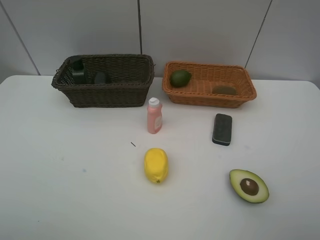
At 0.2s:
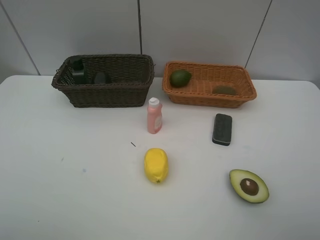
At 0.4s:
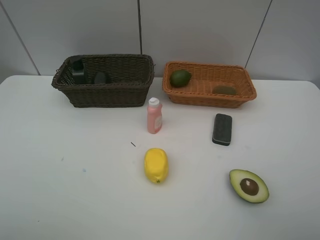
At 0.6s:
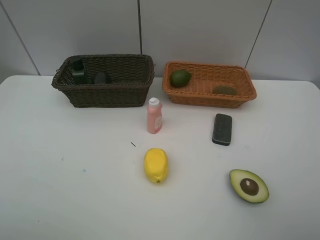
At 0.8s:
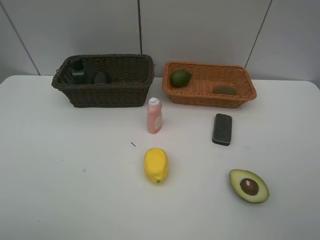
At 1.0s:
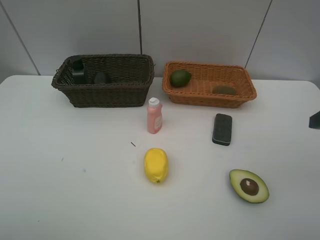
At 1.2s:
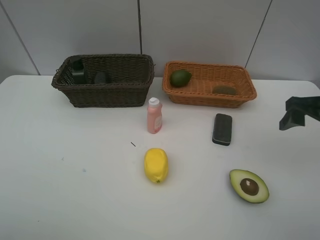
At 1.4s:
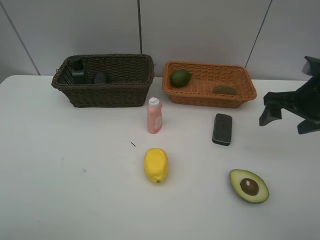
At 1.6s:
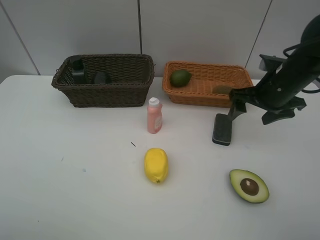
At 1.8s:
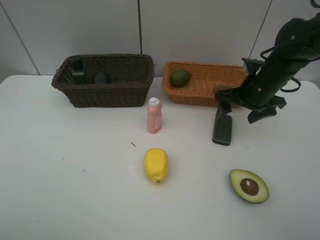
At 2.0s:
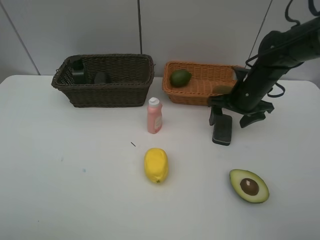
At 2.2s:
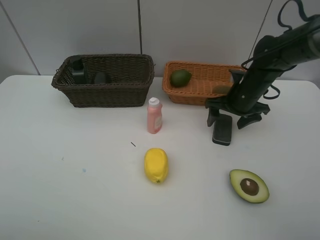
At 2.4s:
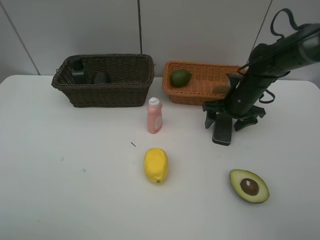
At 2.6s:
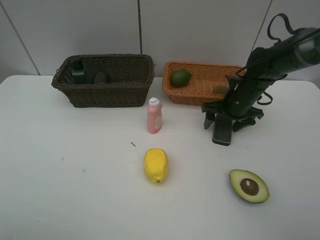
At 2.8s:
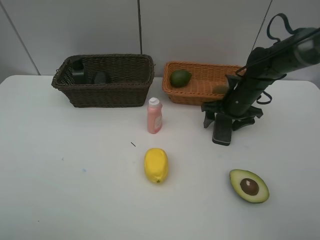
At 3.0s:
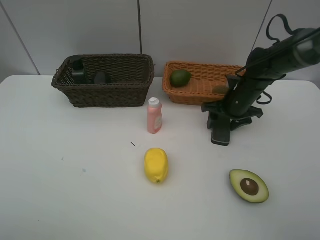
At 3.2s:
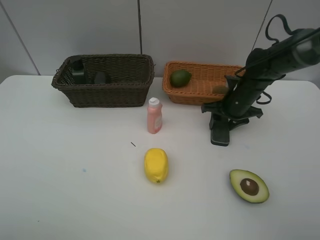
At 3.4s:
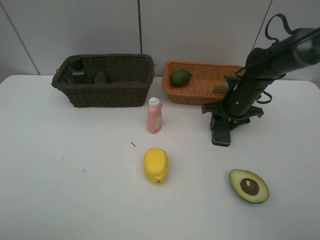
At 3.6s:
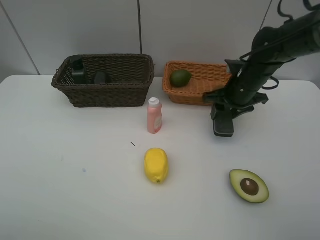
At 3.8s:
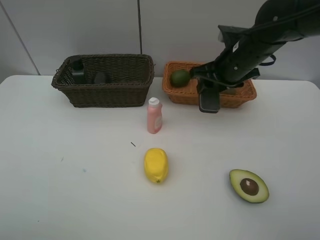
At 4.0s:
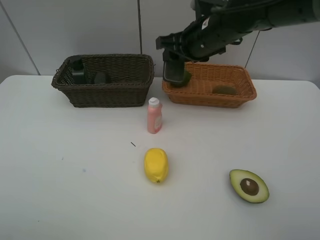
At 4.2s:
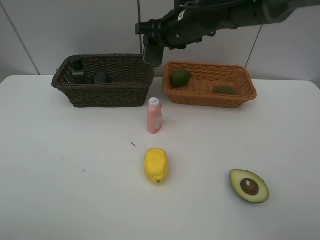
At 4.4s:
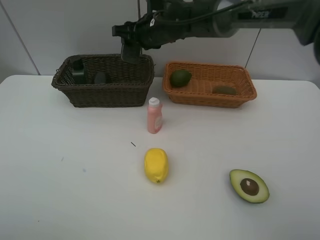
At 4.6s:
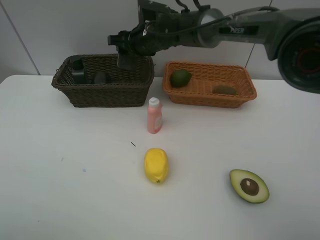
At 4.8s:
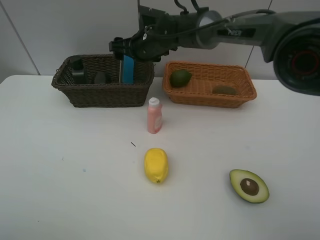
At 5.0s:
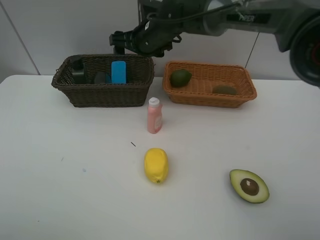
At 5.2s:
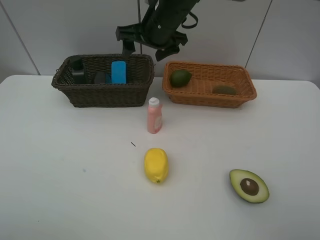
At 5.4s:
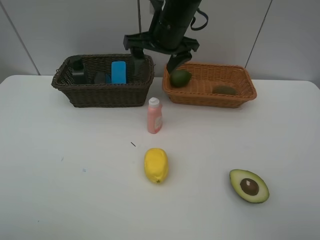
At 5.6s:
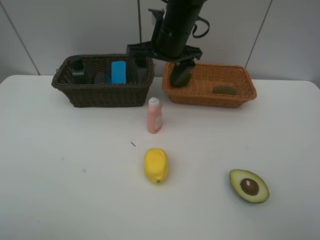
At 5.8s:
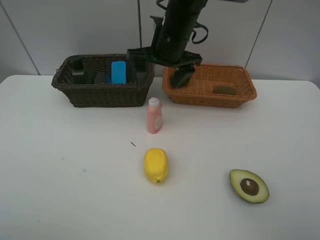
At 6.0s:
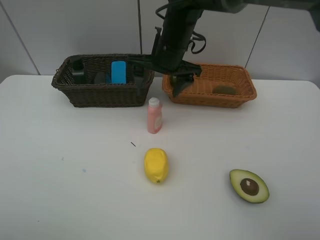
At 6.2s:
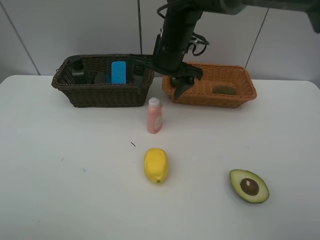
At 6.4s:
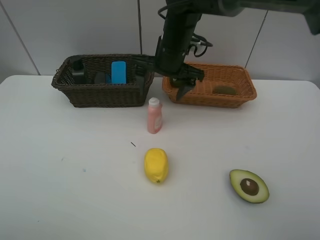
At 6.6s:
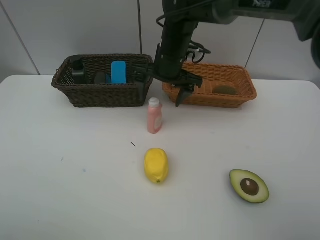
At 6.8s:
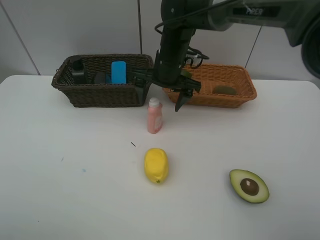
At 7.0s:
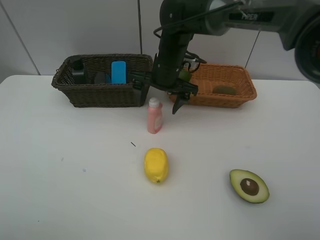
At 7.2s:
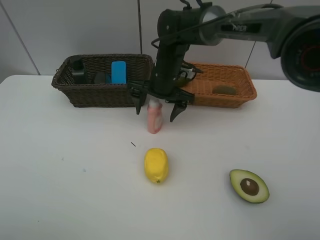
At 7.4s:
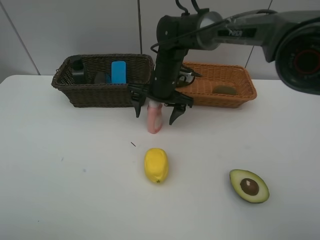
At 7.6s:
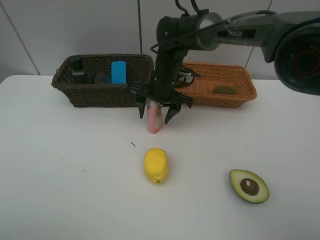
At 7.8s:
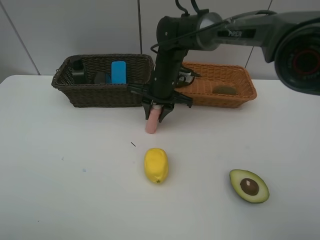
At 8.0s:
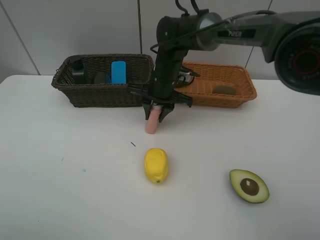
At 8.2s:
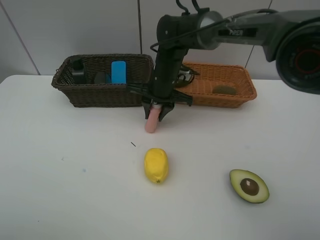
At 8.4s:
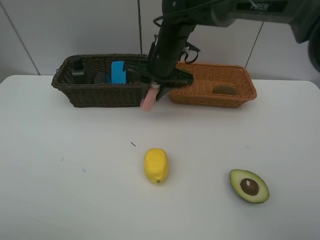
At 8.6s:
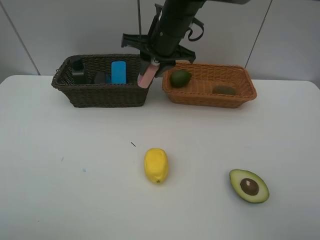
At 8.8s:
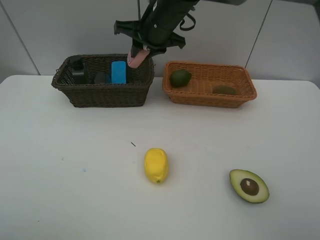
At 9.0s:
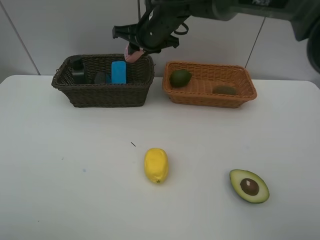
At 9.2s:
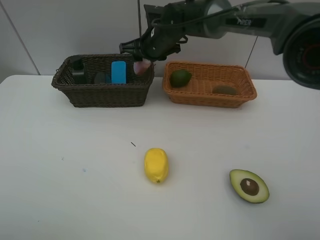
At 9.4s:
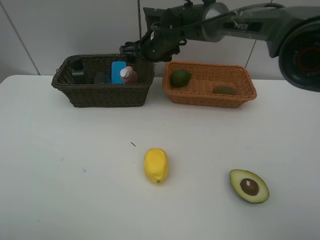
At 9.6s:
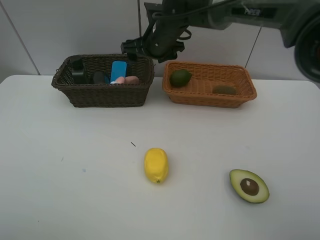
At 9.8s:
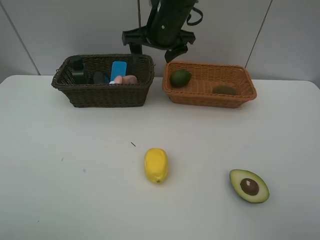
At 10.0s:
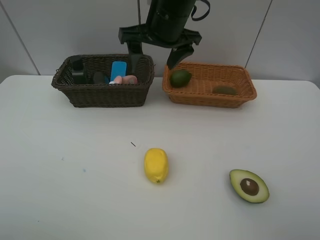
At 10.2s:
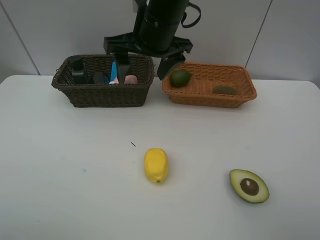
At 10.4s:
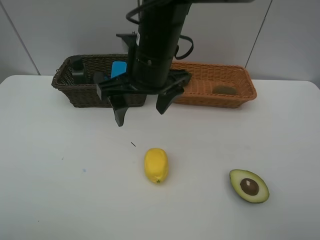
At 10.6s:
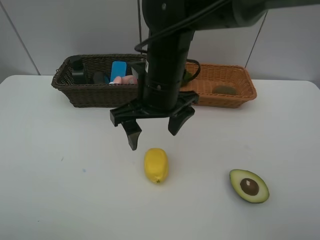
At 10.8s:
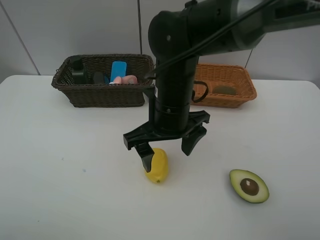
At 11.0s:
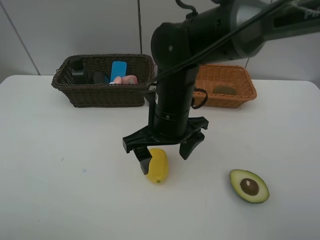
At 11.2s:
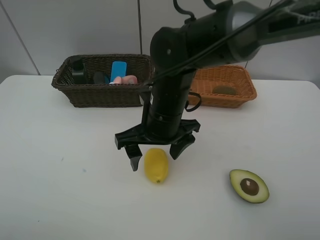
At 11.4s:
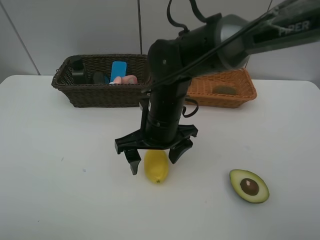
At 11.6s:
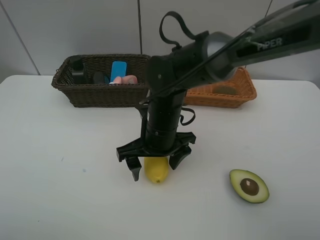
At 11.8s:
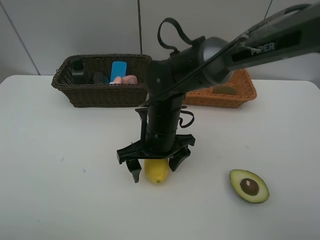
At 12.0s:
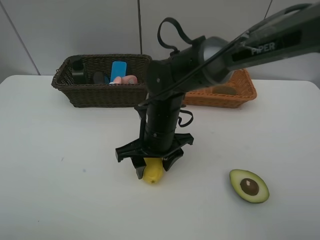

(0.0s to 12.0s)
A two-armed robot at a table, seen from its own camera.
Task of the whole recording: Place multiple objects separately in different baskets.
Step, 0.0s - 3.6s: Pick up blackboard eraser with right gripper.
Step, 3.8s - 4.8s: Place the blackboard eraser in the dark basket with right gripper.
Step, 5.0s - 8.2s: Pick up the laundry detergent with right gripper.
Step, 8.4s - 9.4s: Place the laundry detergent in the dark basket with right gripper.
0.0s - 1.6s: The right gripper travels forward by about 30 cm.
1.6s - 3.0s: The right gripper is displaced downward and forward by about 10 cm, and closes its fingers.
3.0s - 4.4s: The right gripper travels to the left and upward by some 25 cm.
4.4s - 6.0s: The right gripper goes approximately 5 cm backward, and opens its fingers.
6.0s - 7.6s: The right gripper shifts about 10 cm downward, and closes its fingers.
7.6s - 9.0s: The right gripper goes roughly 10 cm upward, and closes.
9.0s - 10.4s: The right gripper moves backward, some 15 cm, and opens up.
10.4s - 12.0s: The right gripper shifts about 10 cm downward, and closes up.

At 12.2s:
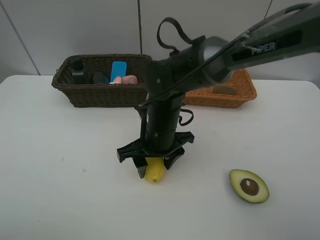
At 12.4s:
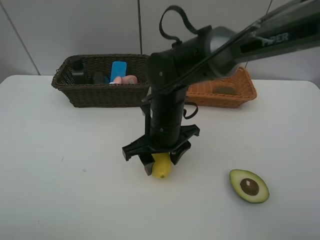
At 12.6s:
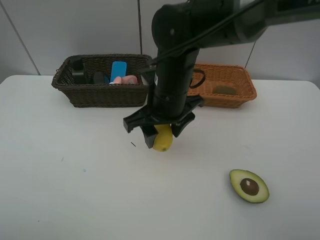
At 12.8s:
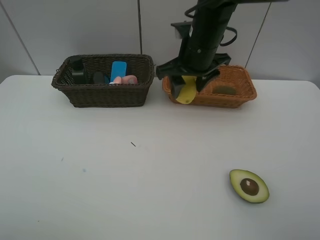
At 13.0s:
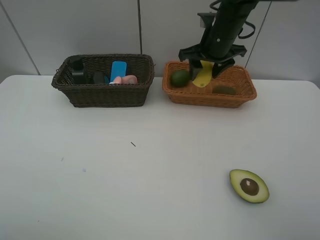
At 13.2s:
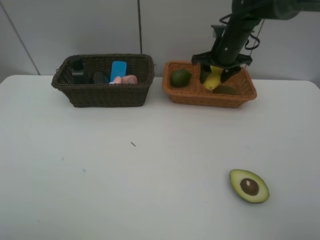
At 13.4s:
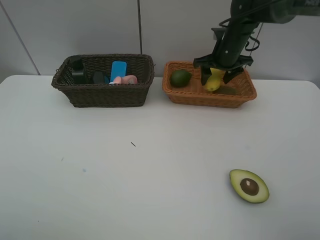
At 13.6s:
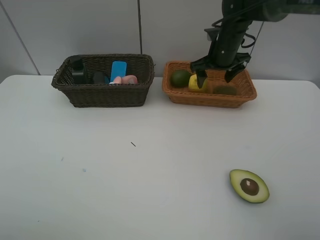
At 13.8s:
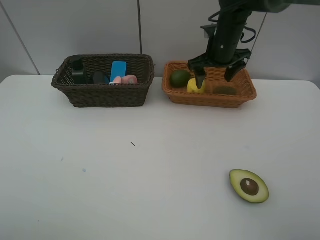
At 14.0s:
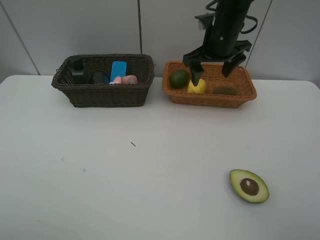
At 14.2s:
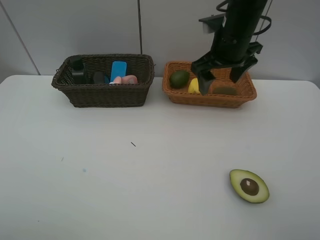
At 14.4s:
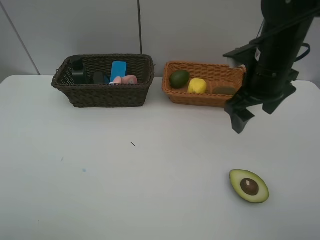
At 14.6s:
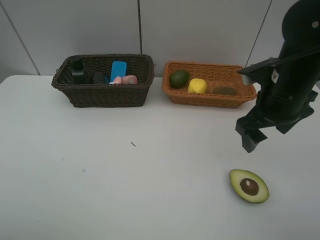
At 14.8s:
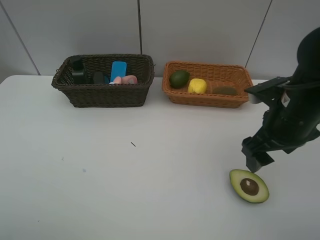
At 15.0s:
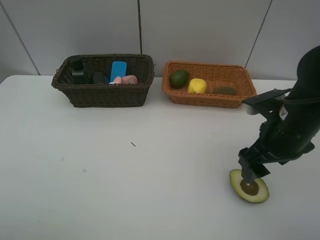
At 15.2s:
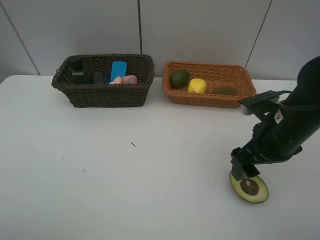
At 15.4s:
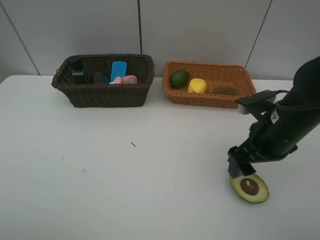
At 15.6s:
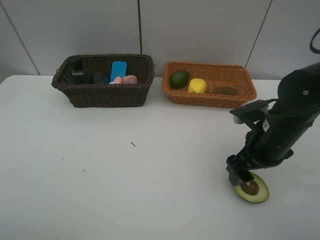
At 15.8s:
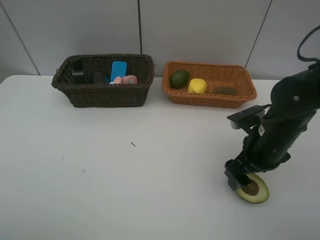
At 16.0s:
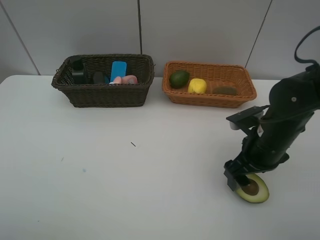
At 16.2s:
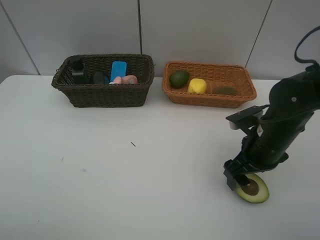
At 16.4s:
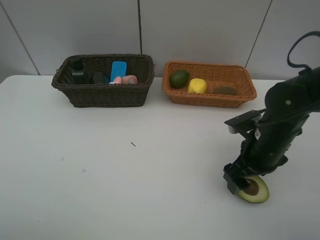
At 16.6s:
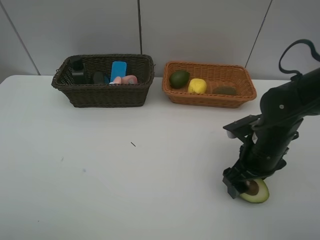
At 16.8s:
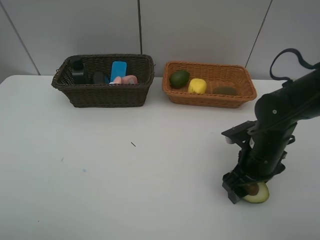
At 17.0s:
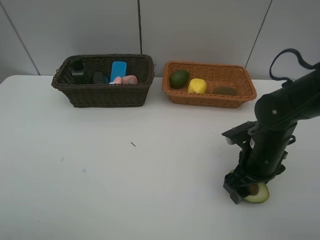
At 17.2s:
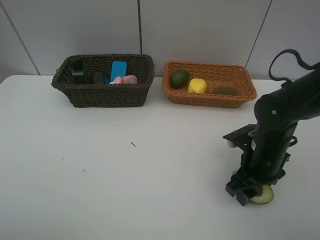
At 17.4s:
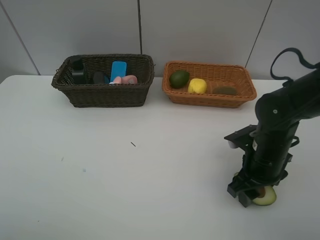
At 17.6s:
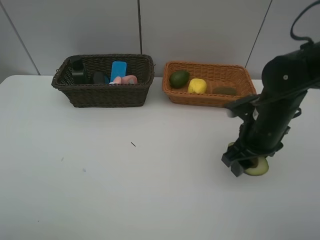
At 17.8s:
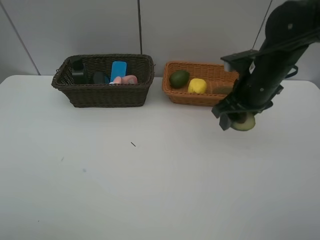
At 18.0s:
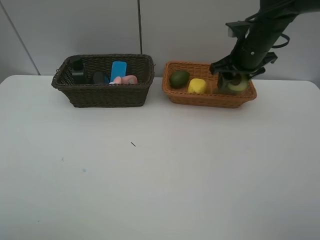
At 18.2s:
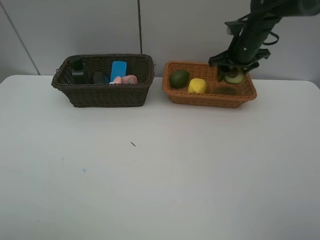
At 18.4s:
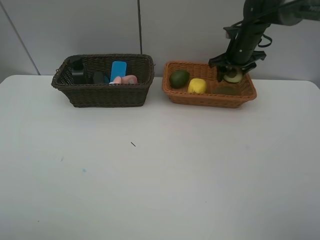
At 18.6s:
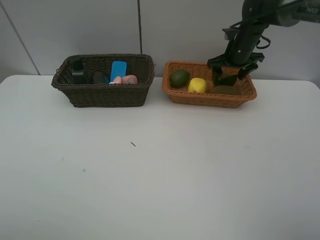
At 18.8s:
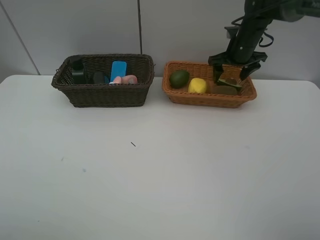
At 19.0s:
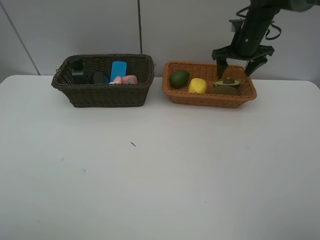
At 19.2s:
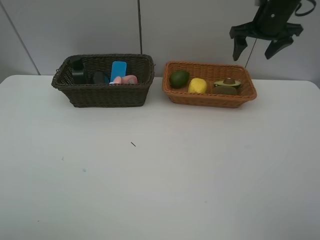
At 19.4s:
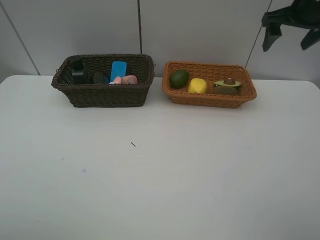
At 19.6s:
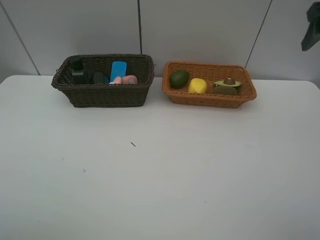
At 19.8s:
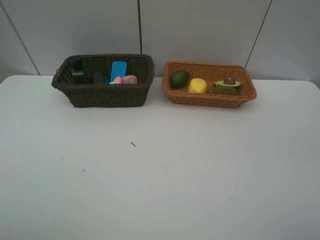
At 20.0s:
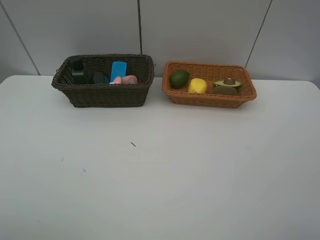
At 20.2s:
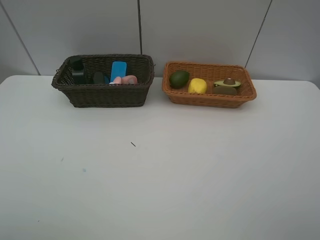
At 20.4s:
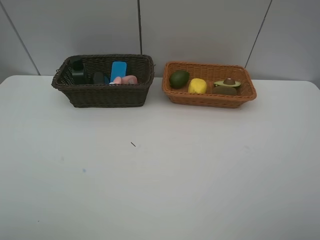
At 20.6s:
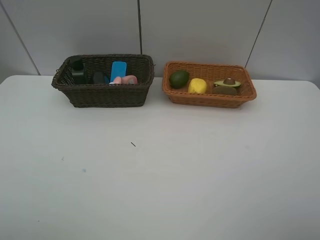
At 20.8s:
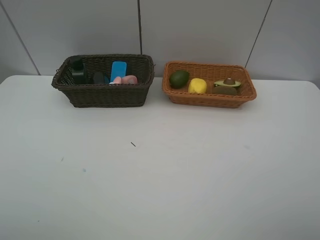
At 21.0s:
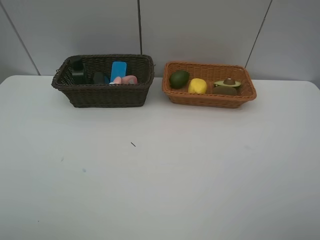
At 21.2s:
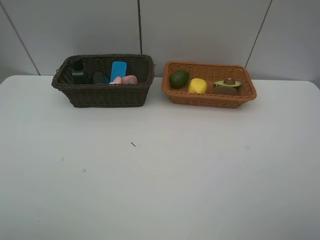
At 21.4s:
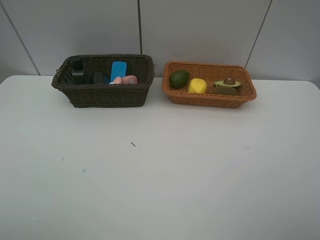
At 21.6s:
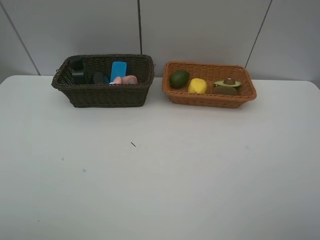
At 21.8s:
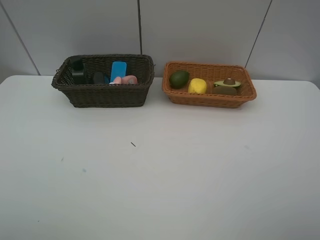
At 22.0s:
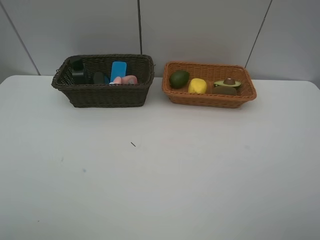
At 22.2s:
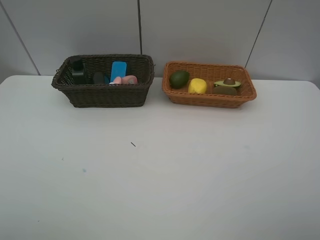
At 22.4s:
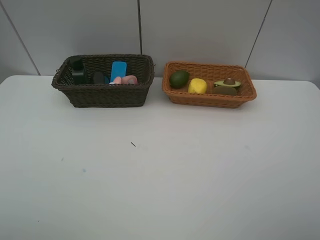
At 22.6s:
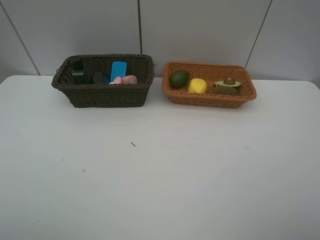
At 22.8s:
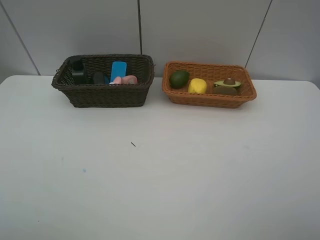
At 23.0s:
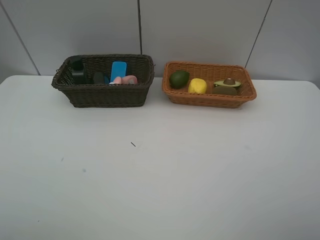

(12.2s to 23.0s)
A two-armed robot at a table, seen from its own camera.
Task of the whole recording: Place multiple objects separately in different baskets.
Step, 12.6s - 13.6s: Place the lemon in the light basket with right gripper.
Step, 13.8s - 17.4s: Pick up the avocado with right gripper.
Step, 17.6s - 19.0s: Place the avocado in the light basket with right gripper.
12.2s - 13.8s: The right gripper heads forward, to the right and upward, covering about 25 cm, and opens up.
13.8s - 15.2s: The right gripper moves backward, about 25 cm.
15.2s - 16.8s: The right gripper goes roughly 10 cm downward.
16.8s - 18.4s: The right gripper heads forward, covering some 30 cm.
18.4s - 20.0s: The right gripper travels backward and upward by approximately 40 cm.
21.4s - 23.0s: The two grippers keep their place.
